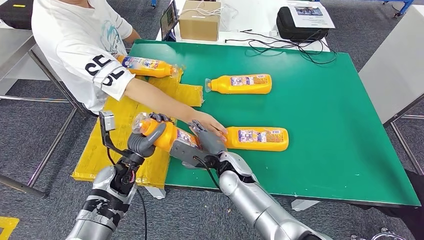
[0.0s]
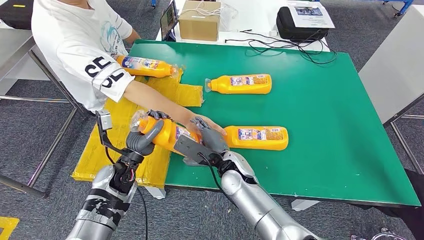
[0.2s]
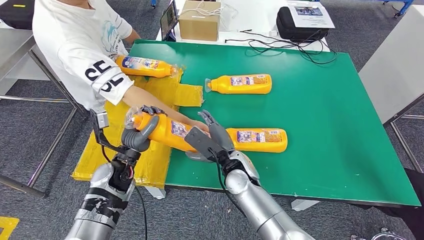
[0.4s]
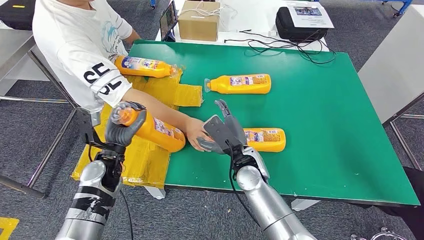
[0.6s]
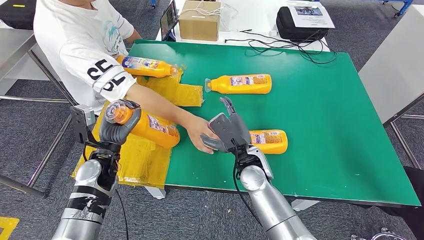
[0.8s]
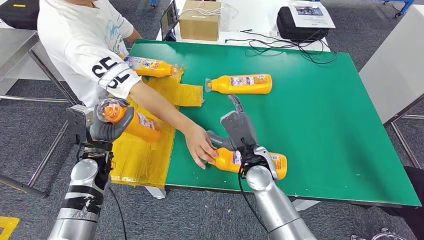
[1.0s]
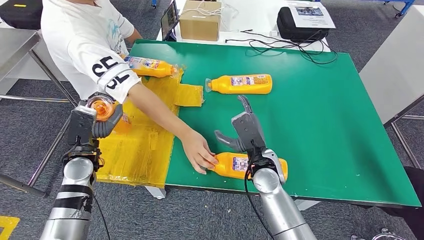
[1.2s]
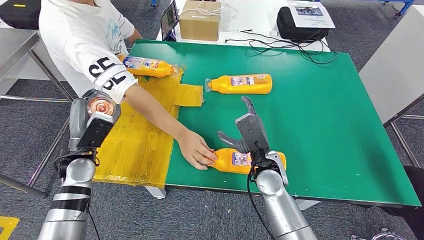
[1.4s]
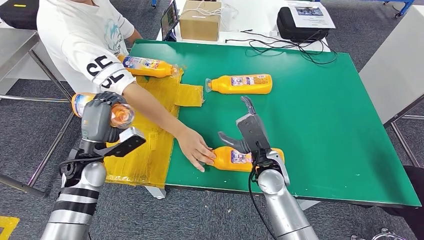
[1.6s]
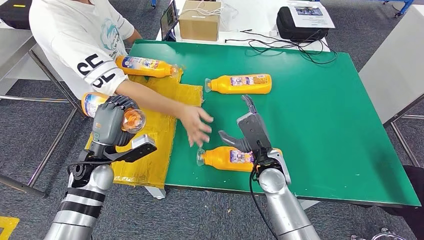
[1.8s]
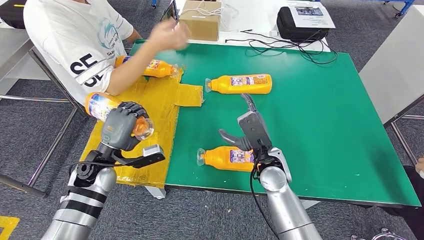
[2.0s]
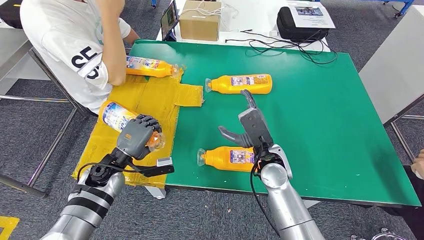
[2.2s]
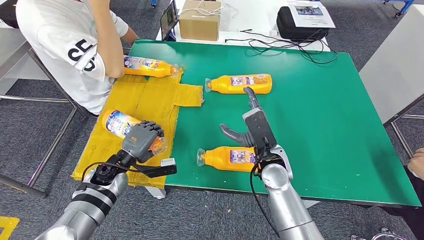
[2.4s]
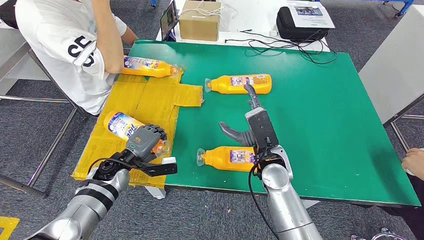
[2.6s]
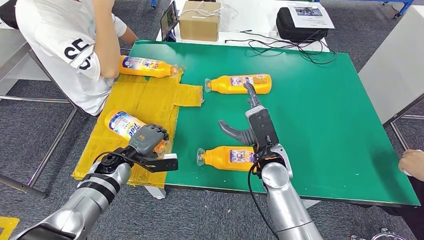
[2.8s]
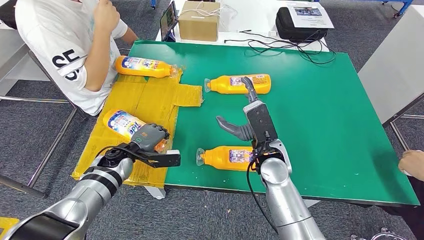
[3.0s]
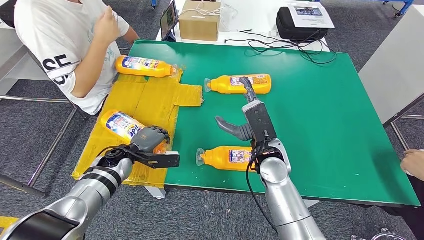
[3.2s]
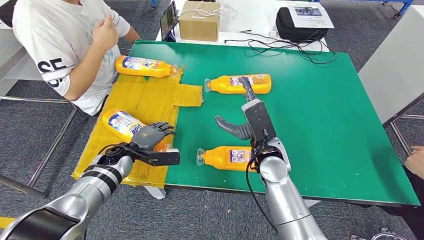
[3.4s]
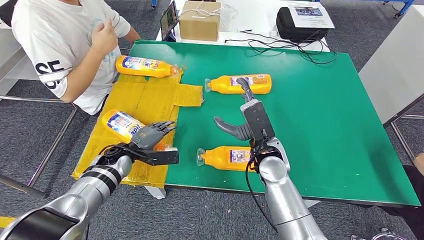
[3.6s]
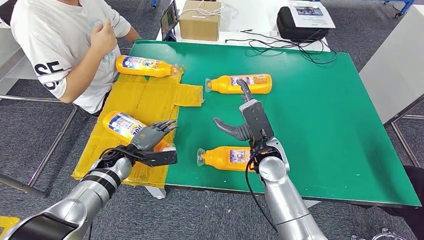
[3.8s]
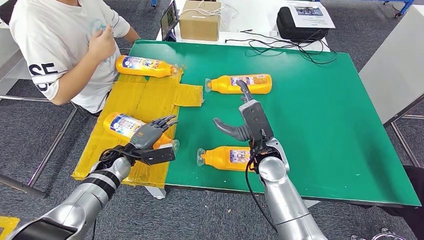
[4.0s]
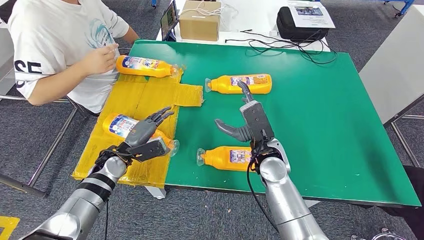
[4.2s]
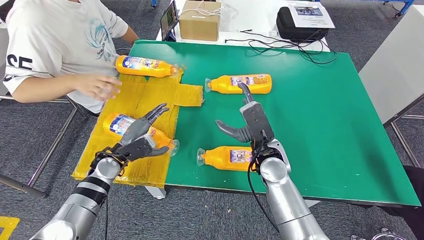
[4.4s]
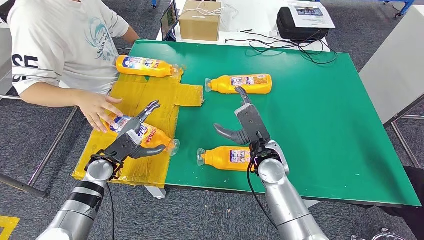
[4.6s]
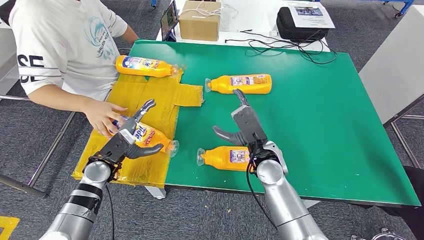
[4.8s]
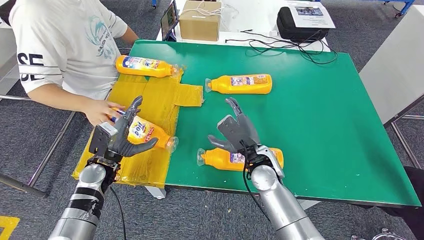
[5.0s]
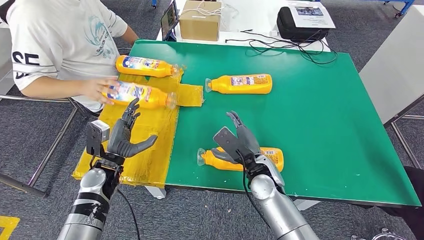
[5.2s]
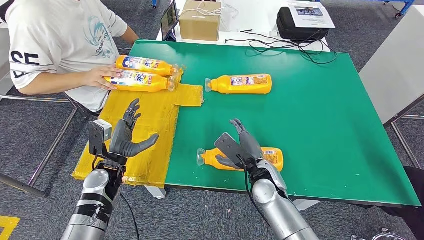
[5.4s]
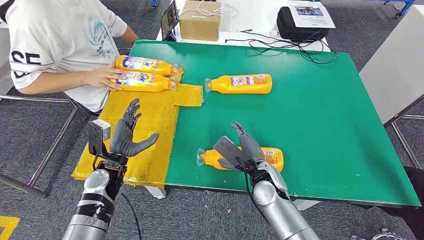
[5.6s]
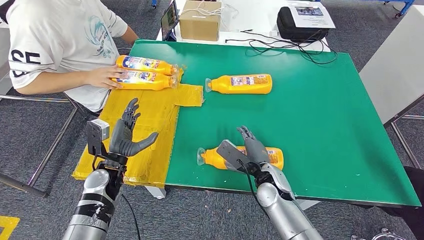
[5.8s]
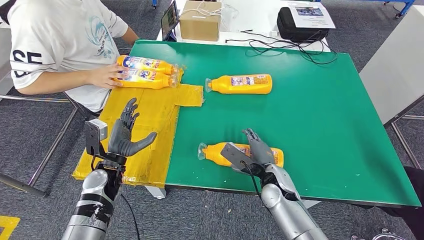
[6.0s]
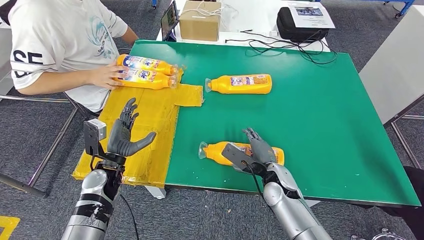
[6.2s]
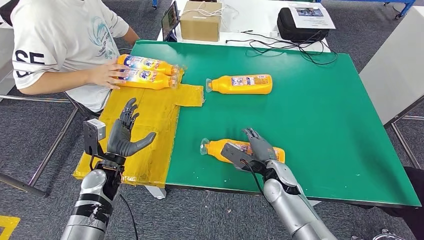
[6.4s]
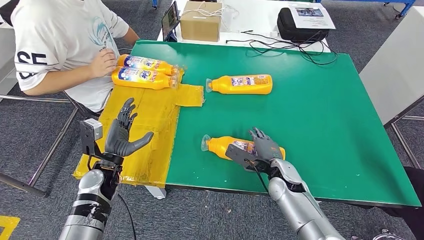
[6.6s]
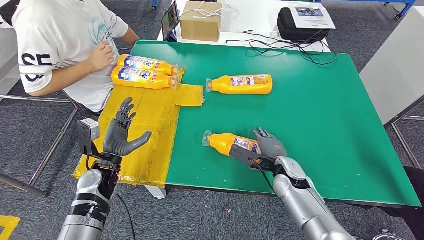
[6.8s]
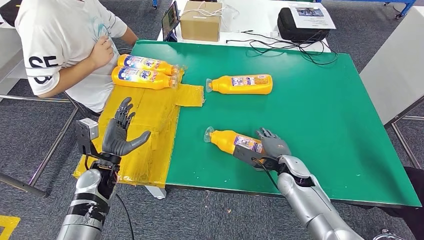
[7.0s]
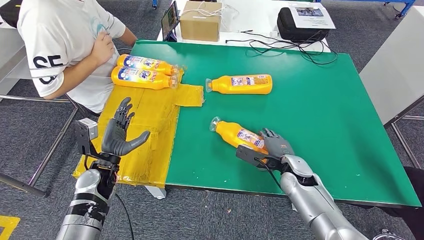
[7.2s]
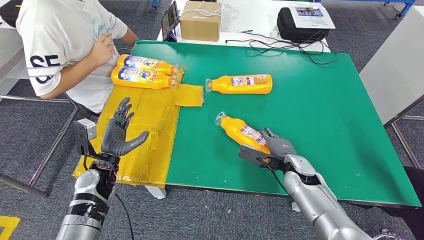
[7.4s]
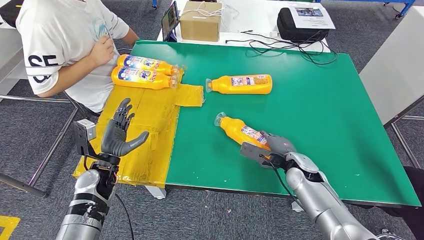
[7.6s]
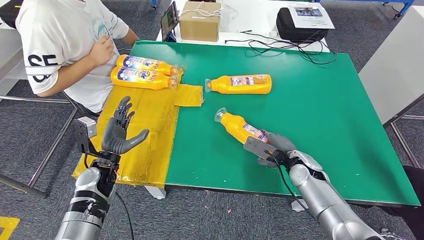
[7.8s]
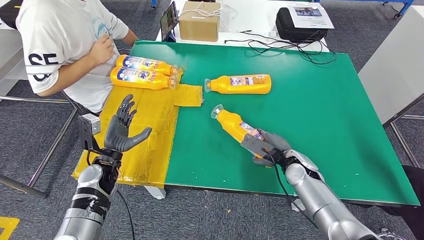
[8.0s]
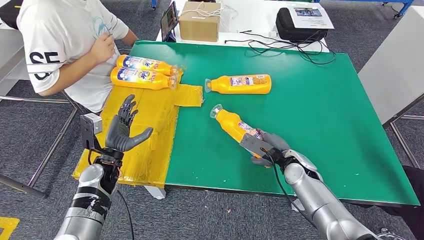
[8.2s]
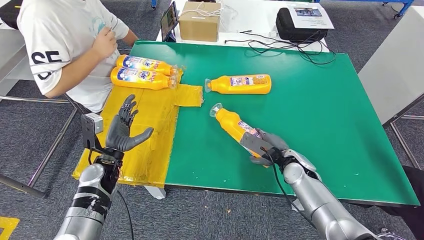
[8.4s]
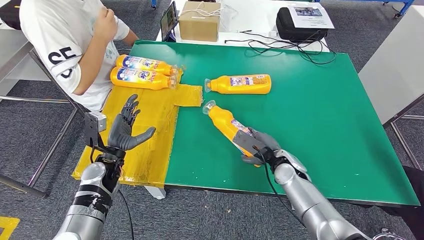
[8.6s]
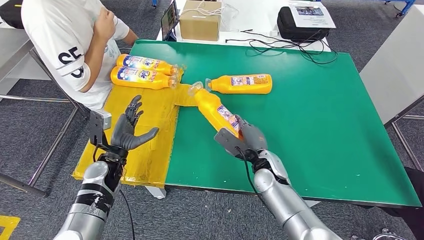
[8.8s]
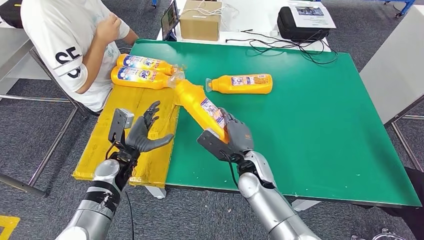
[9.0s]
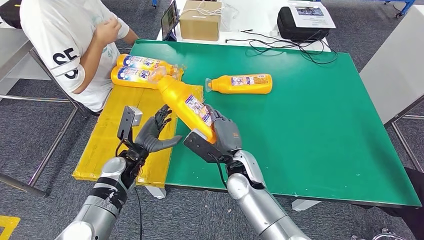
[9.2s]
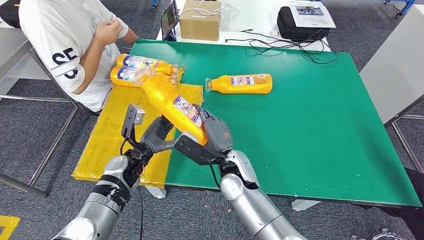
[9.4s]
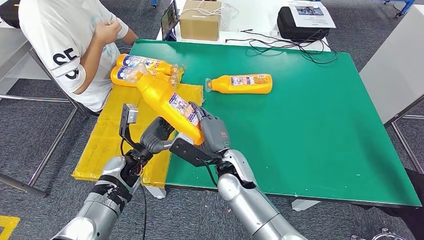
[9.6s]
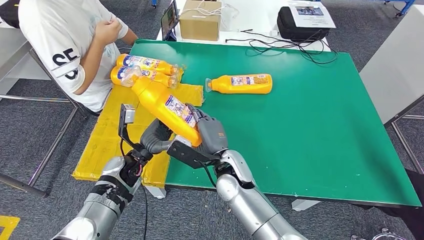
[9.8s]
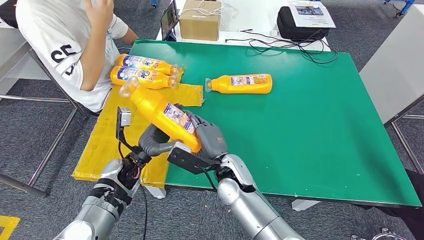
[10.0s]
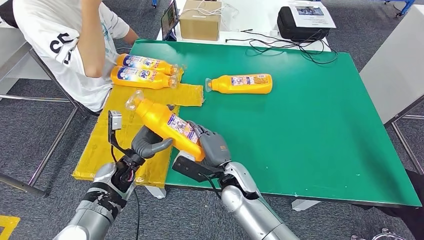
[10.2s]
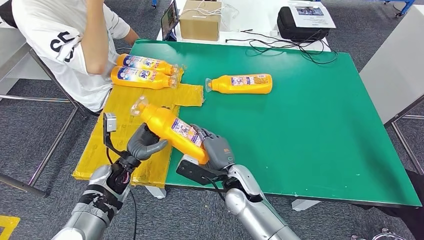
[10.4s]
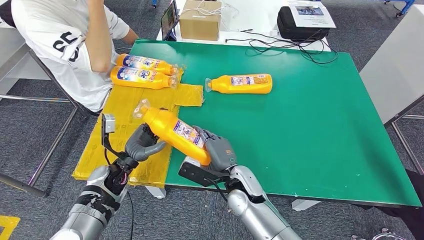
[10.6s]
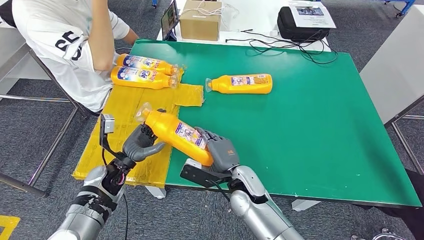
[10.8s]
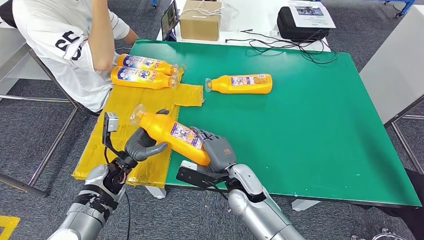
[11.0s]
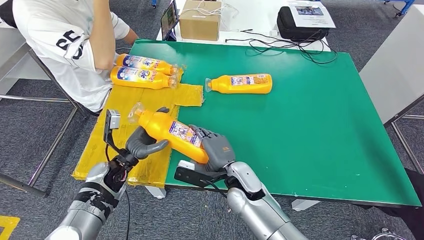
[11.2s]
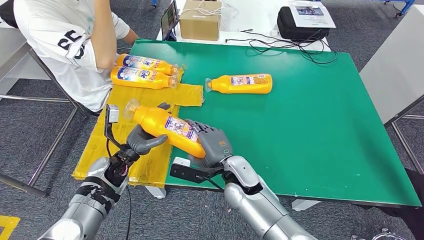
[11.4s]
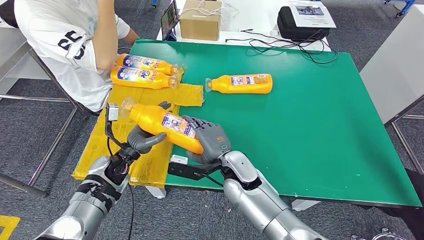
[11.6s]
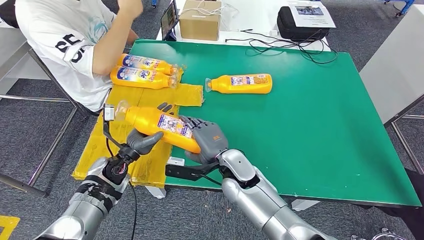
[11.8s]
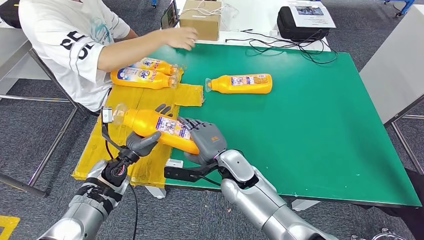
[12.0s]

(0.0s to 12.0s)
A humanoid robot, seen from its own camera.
Step, 0.0s - 5.2s: Flip the fast-moving consumer goods bottle to the front side.
Step, 5.8s - 9.4s: Pick up the fast-moving consumer goods bottle from the table.
4.4s - 6.0s: The right hand is displaced downward by roughly 10 cm.
6.0s - 7.6s: The right hand travels to the right by some 10 cm.
9.0s - 10.4s: The right hand shifts by approximately 5 cm.

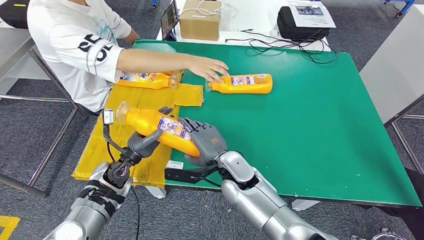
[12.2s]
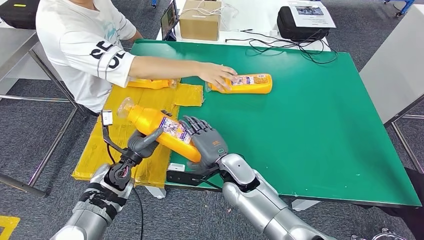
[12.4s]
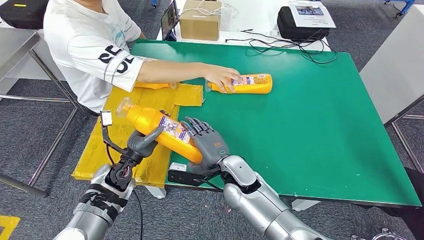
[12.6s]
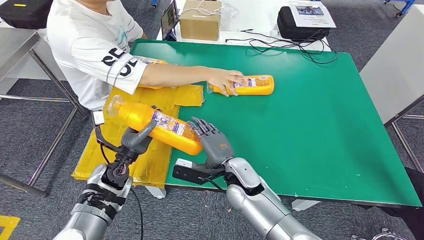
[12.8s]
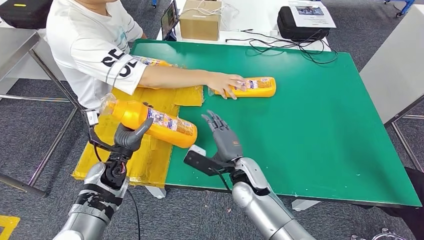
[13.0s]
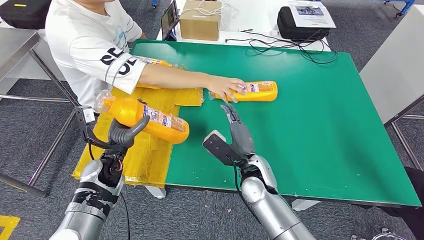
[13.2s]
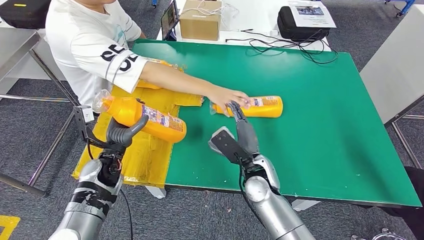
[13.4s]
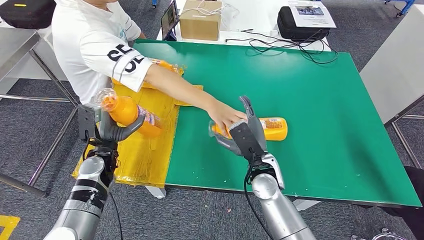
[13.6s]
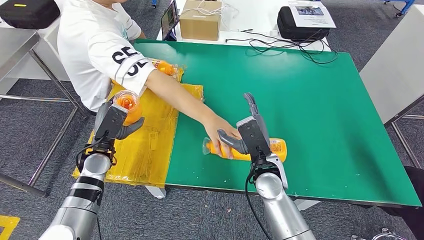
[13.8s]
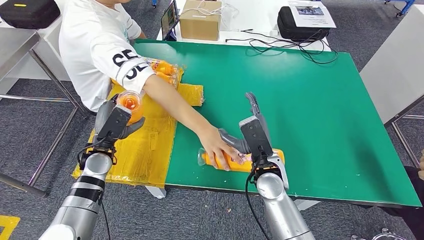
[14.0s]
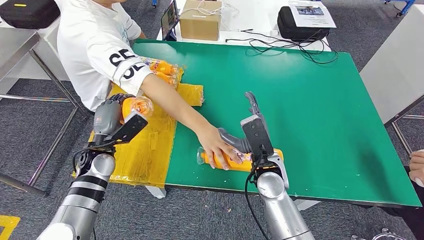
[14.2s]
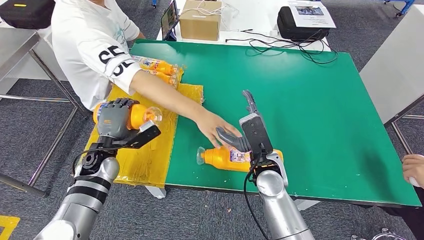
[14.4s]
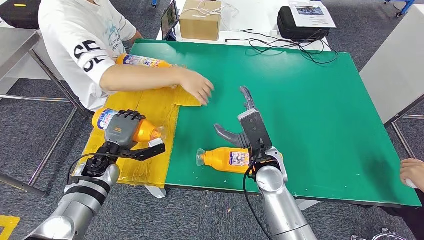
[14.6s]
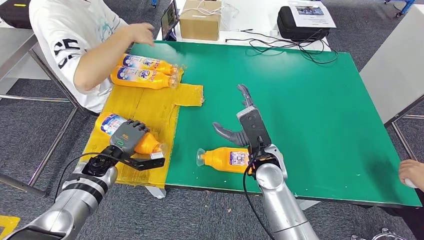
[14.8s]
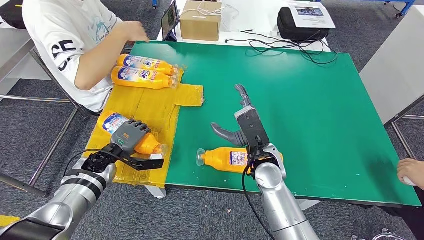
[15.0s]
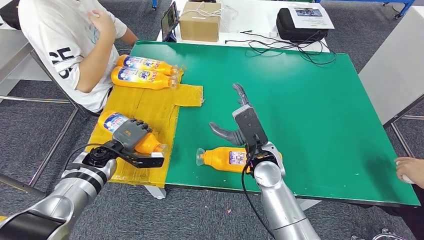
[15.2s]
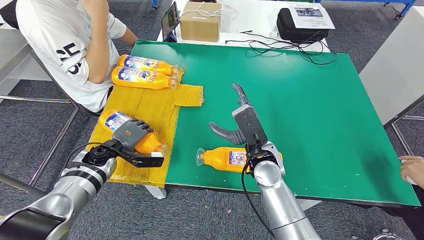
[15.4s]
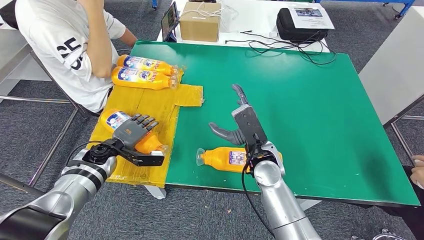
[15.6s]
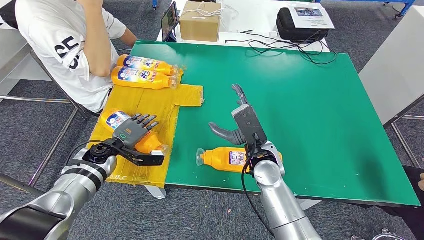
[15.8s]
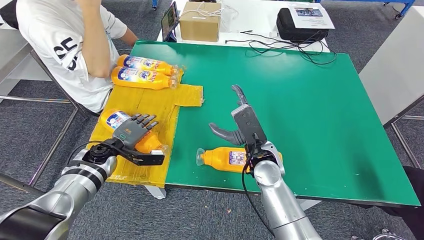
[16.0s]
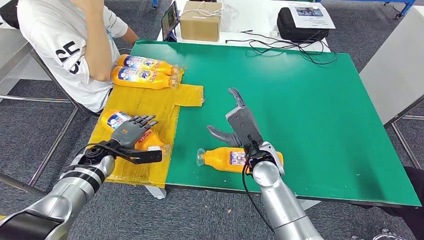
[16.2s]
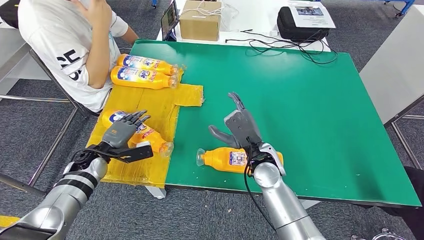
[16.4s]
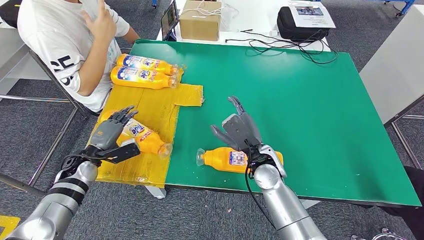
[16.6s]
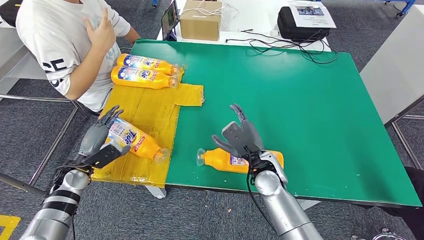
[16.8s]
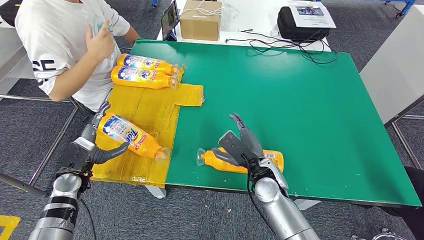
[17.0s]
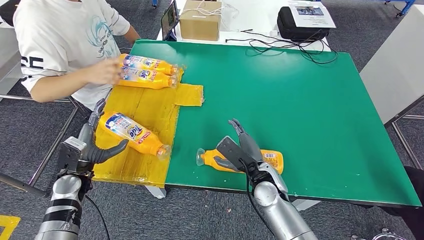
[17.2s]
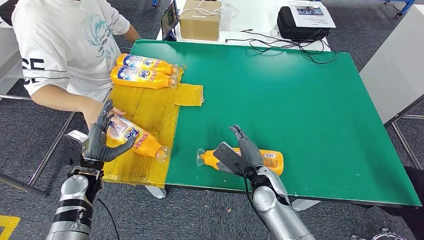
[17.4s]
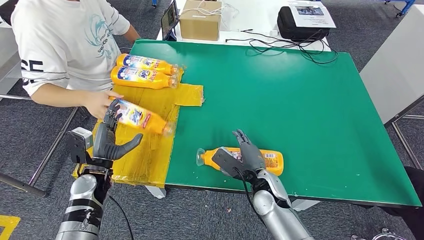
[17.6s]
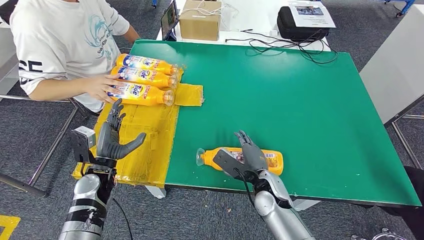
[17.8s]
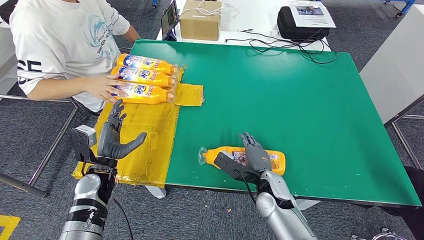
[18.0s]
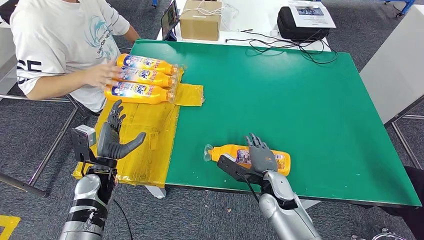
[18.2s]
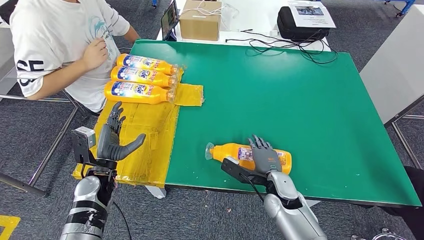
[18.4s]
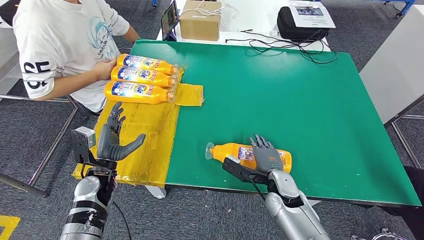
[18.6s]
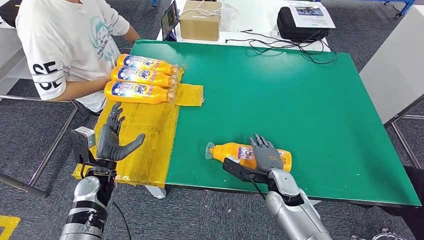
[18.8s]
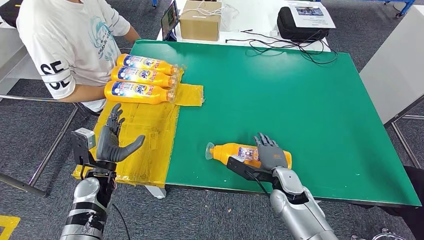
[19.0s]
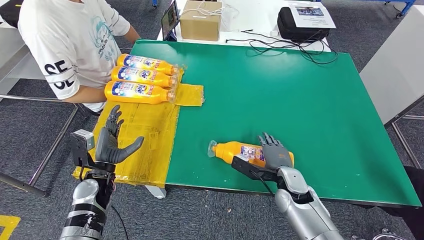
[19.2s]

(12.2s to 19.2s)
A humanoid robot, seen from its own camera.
Step, 12.2s - 17.0s: Flip the fast-moving consumer goods bottle to the front side.
17.8s - 19.2s: The right hand is displaced to the right by some 5 cm.
